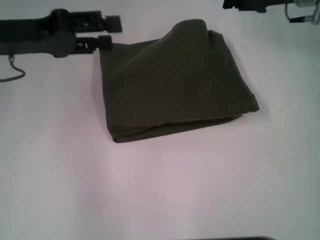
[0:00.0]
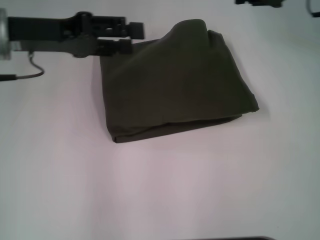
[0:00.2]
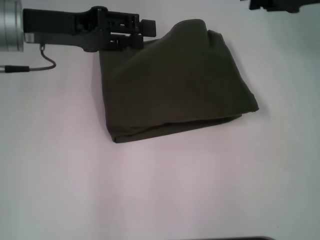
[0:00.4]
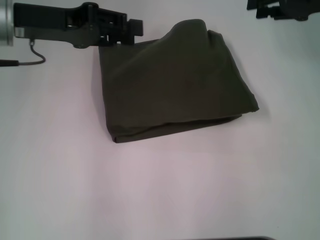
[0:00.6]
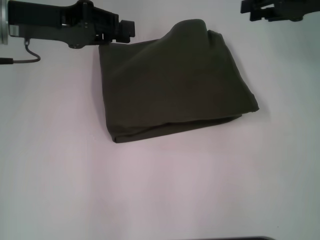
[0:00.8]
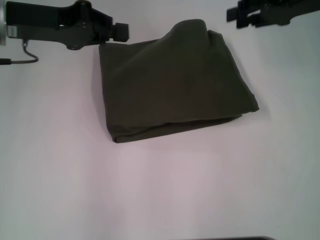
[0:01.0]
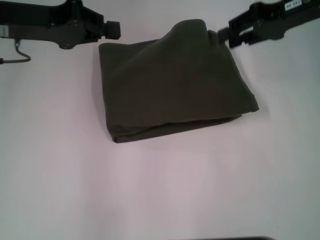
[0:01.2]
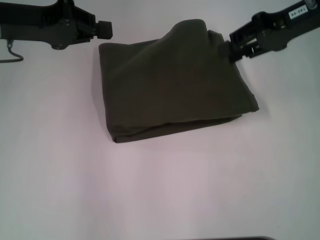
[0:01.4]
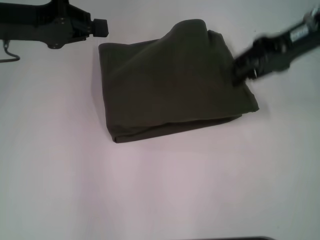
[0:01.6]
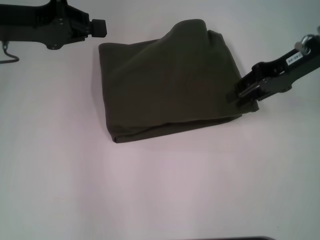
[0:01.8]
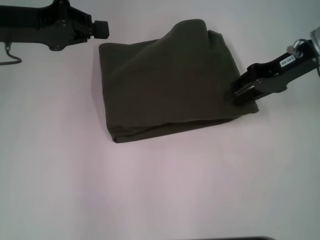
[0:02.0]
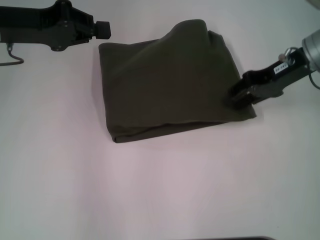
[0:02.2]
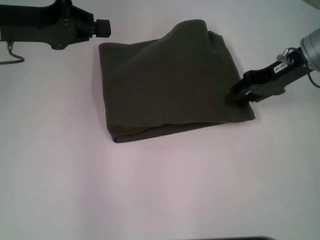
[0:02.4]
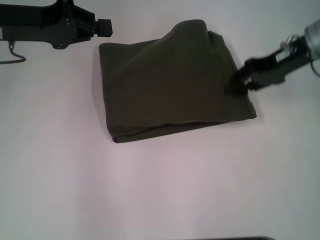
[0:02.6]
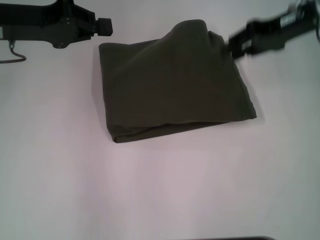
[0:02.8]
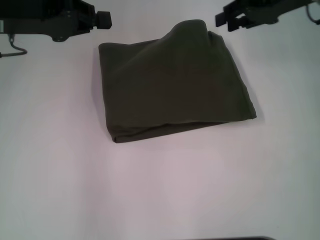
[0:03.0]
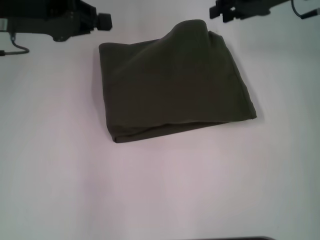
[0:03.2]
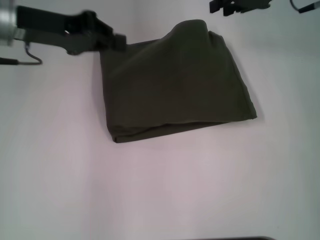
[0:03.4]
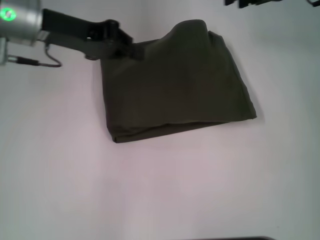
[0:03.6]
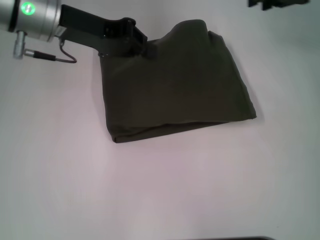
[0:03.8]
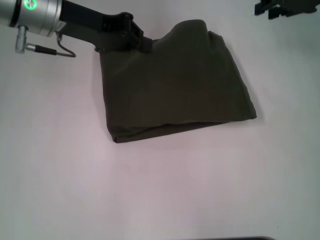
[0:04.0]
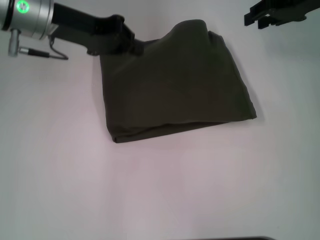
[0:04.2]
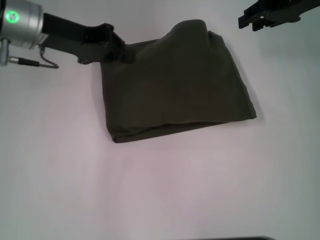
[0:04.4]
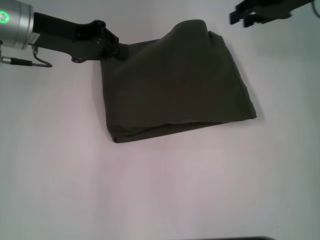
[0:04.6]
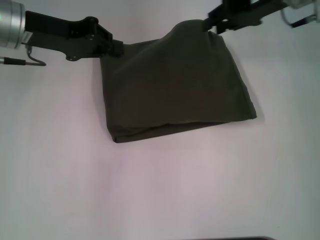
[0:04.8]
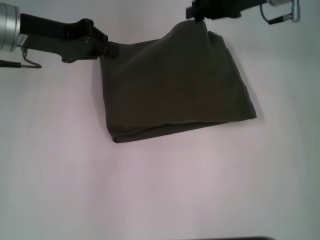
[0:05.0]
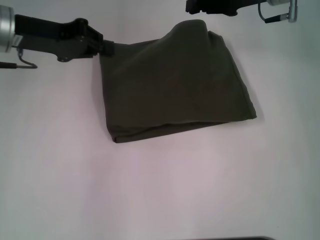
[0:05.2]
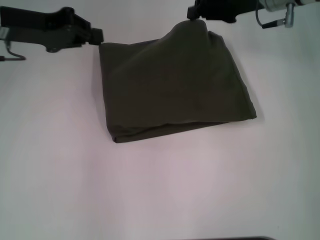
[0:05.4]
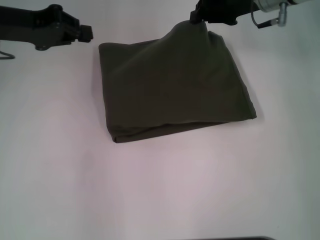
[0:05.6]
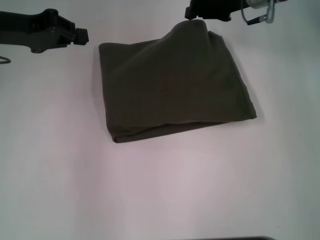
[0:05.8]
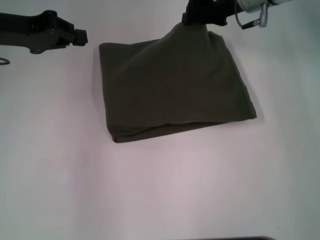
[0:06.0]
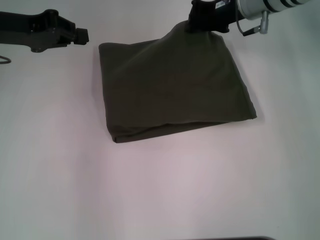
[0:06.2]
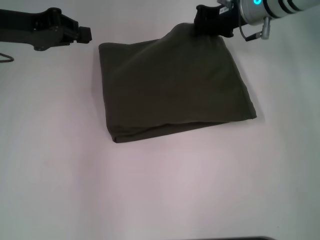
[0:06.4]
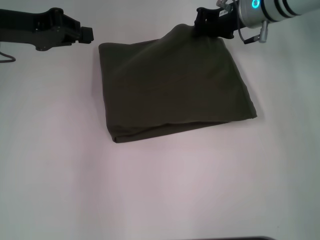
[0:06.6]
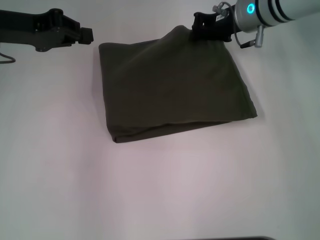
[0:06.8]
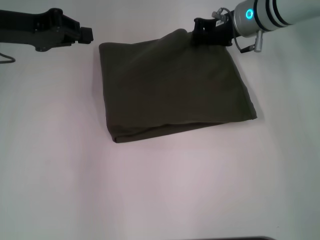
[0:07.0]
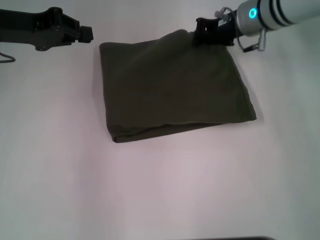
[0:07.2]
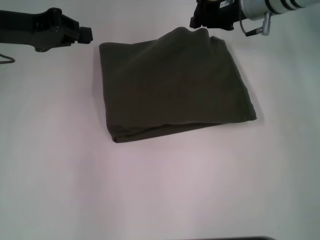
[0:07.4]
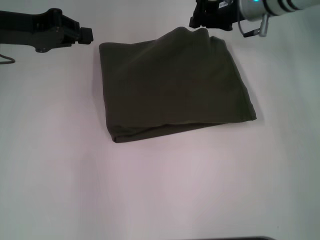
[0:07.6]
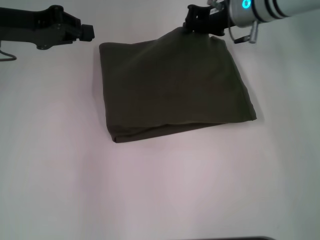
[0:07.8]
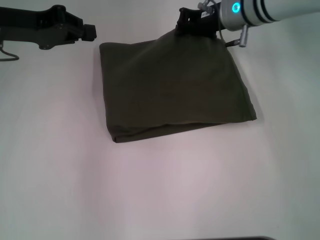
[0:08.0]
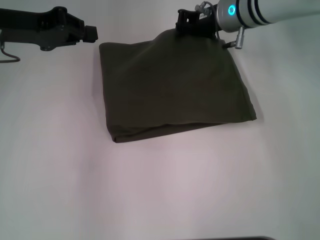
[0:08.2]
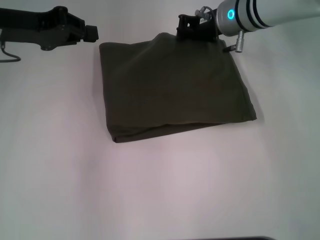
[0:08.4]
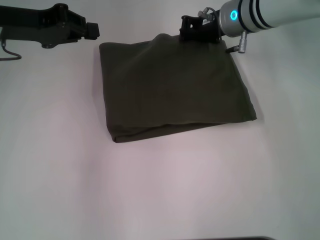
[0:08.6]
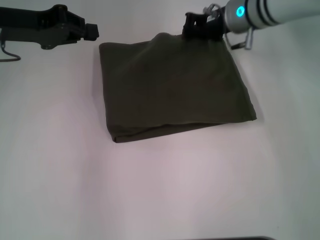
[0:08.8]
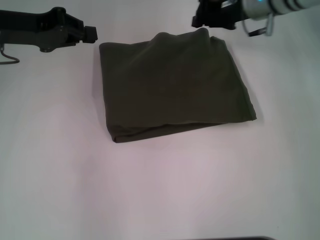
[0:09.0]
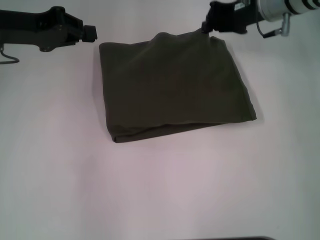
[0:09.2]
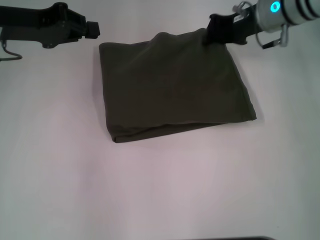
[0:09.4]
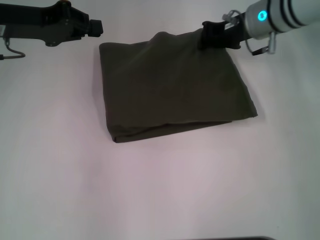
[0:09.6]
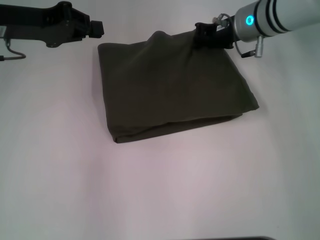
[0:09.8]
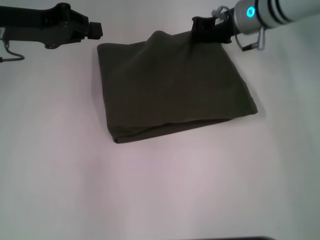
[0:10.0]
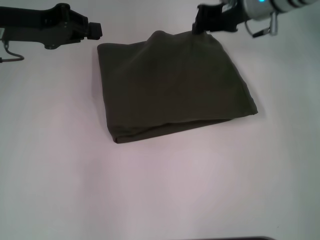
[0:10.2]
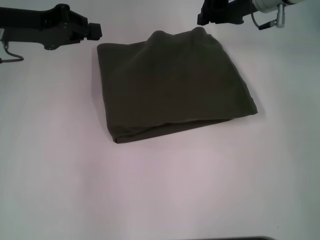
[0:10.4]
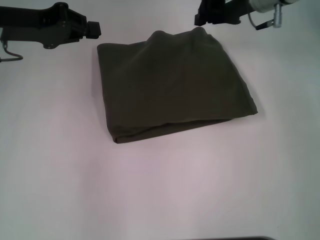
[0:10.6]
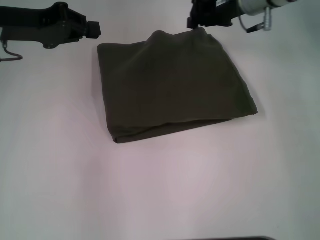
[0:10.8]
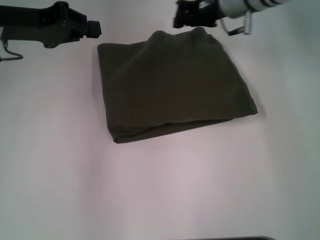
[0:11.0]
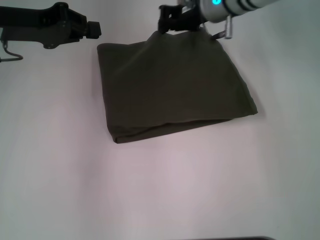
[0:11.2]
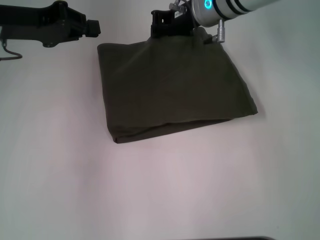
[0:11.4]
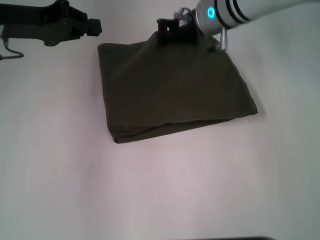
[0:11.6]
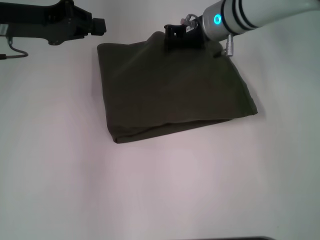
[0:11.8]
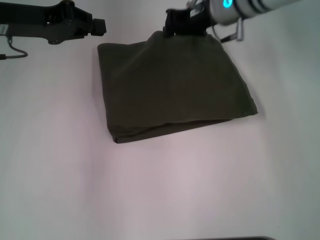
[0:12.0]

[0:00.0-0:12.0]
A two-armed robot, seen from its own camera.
0:00.0 to 0:01.6: The right gripper moves backward, approximately 5 cm; the left gripper closes.
0:01.6 to 0:03.0: The right gripper changes place by approximately 5 cm.
0:04.4 to 0:06.0: The grippers both shift to the left by some 10 cm. The right gripper closes its fingers.
0:06.0 to 0:10.4: The grippers make only small movements.
0:10.4 to 0:12.0: The right gripper is displaced to the left by approximately 5 cm.

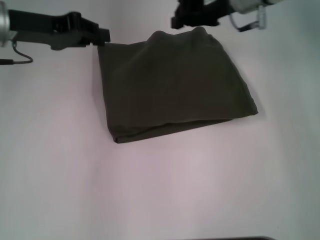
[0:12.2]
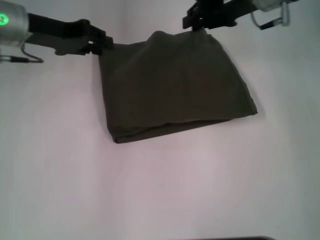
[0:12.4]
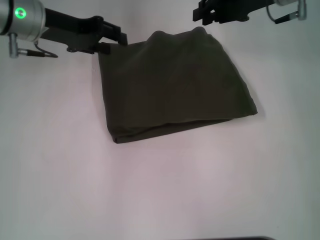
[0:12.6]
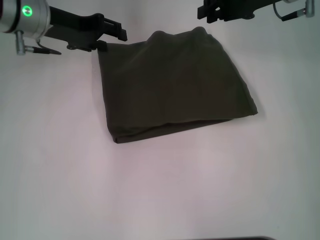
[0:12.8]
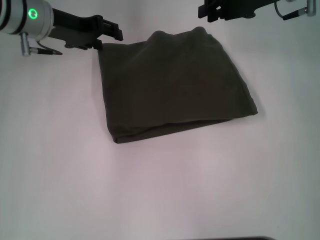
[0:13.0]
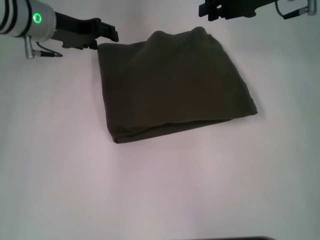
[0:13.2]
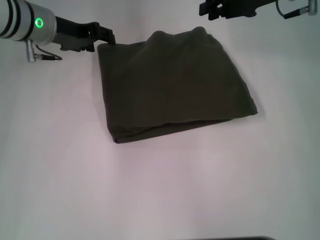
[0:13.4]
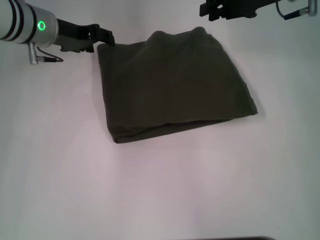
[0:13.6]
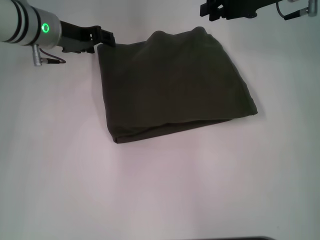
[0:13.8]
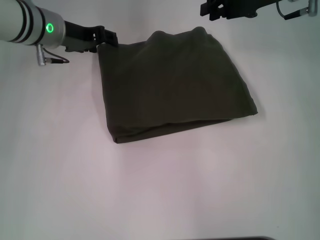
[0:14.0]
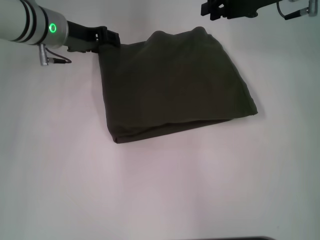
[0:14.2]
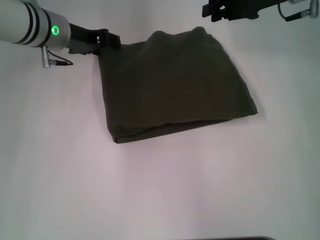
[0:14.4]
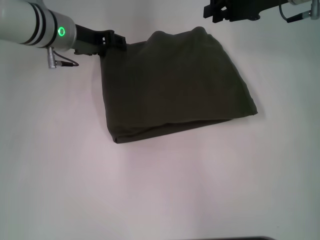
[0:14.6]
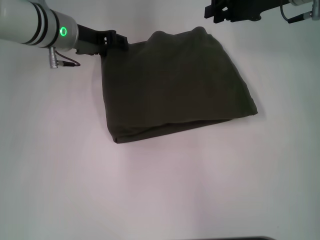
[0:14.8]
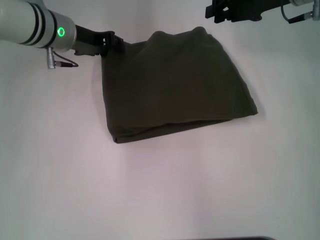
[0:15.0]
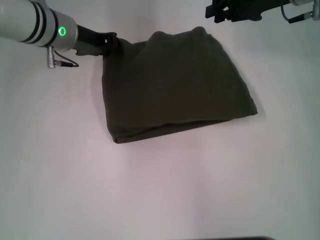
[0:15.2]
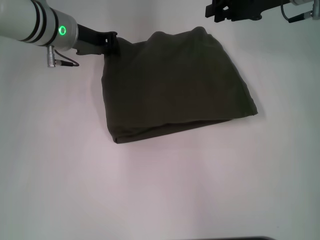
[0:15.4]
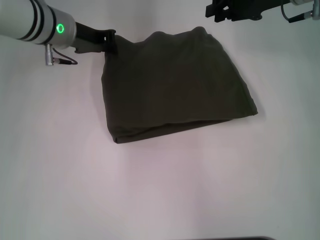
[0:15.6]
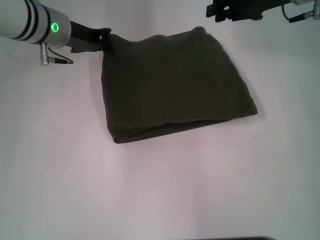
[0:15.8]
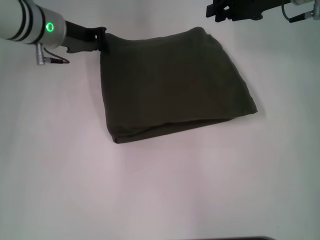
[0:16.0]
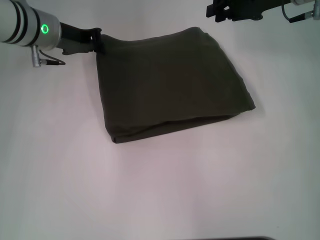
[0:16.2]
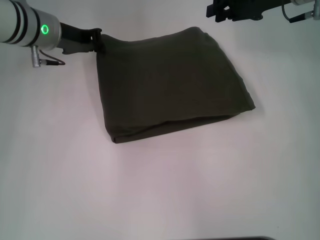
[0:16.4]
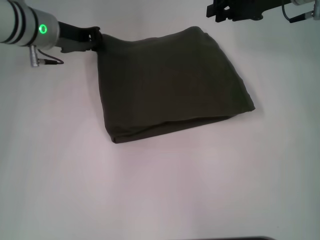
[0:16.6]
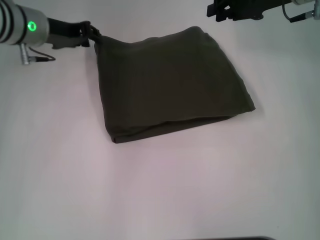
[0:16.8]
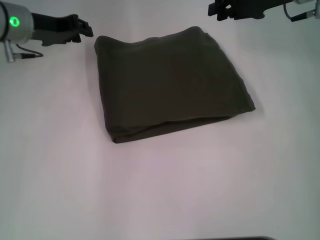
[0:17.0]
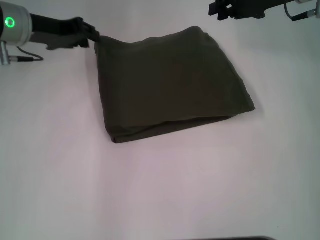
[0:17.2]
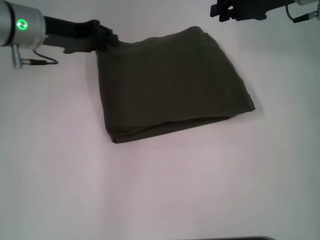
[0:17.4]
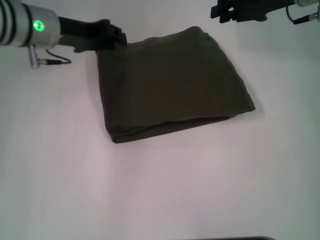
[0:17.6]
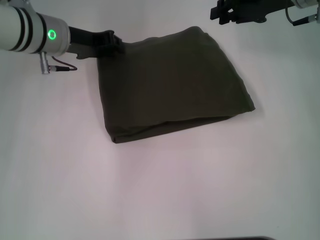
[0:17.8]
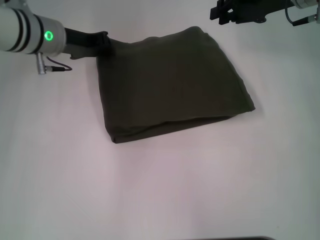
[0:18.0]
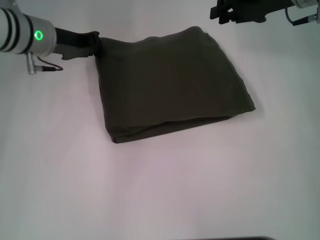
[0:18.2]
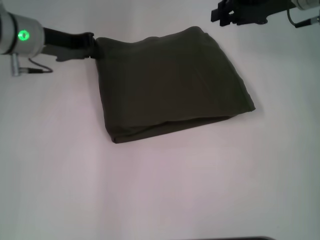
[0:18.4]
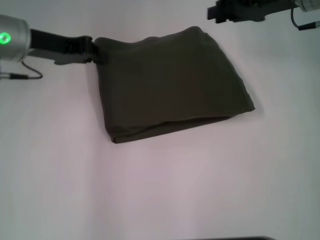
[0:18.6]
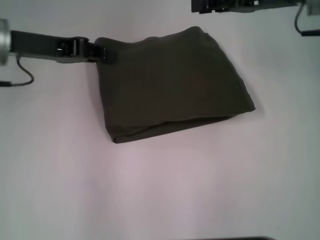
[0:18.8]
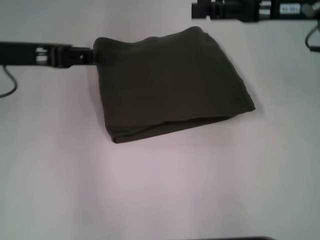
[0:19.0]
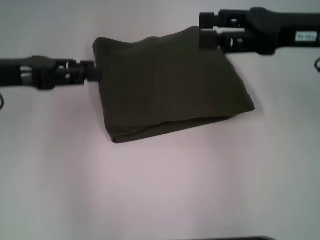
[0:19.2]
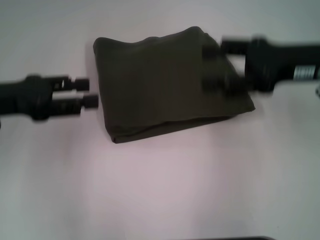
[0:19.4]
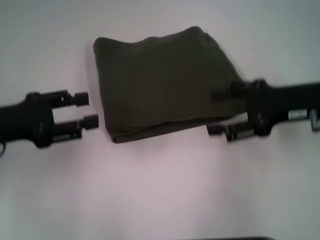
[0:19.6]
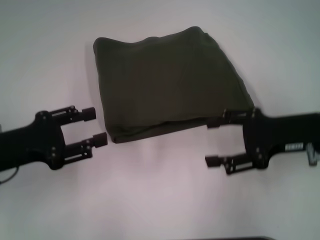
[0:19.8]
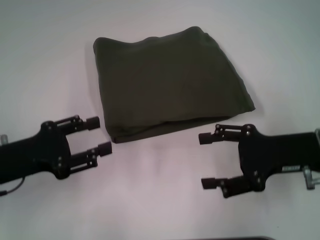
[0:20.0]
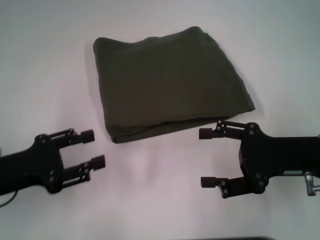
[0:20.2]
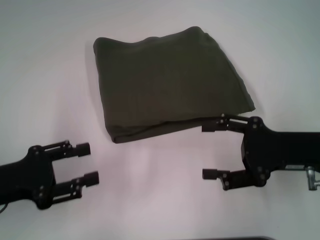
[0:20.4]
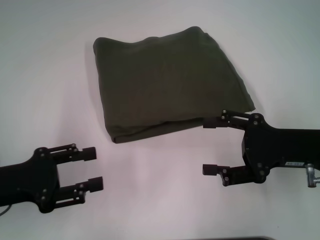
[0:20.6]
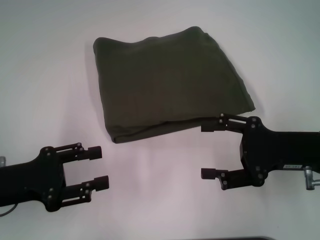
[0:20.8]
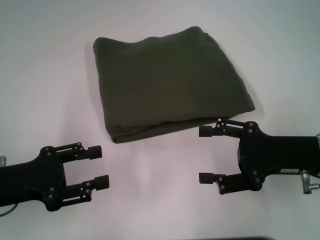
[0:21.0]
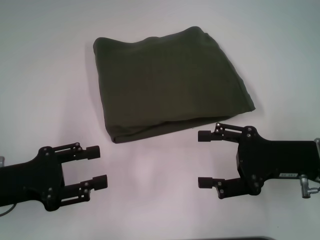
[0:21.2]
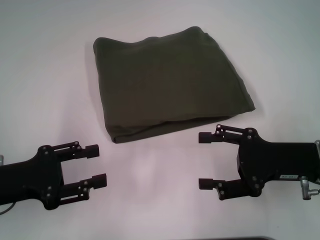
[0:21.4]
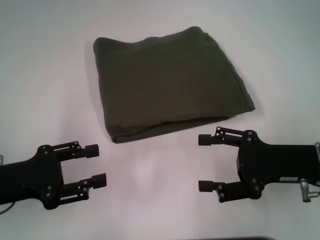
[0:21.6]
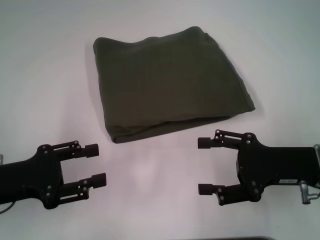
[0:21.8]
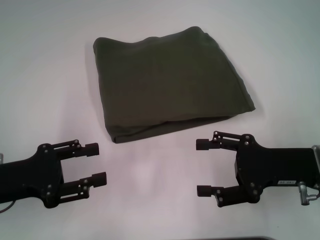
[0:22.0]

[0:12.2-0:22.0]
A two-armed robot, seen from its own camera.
0:12.2 to 0:13.6: The left gripper moves roughly 10 cm, and opens its fingers, while the right gripper goes roughly 5 cm to the right.
0:13.6 to 0:15.0: The grippers stay close to where they were, moving slightly.
0:15.0 to 0:16.4: The left gripper closes up.
0:16.4 to 0:17.8: The left gripper opens.
0:17.8 to 0:19.2: The right gripper travels backward by approximately 10 cm, and opens. Meanwhile the left gripper goes approximately 15 cm backward and to the left.
0:19.2 to 0:20.6: The left gripper is displaced backward and downward by approximately 15 cm, and opens its fingers; the right gripper shifts roughly 15 cm downward and backward.
0:20.6 to 0:22.0: The grippers make only small movements.
